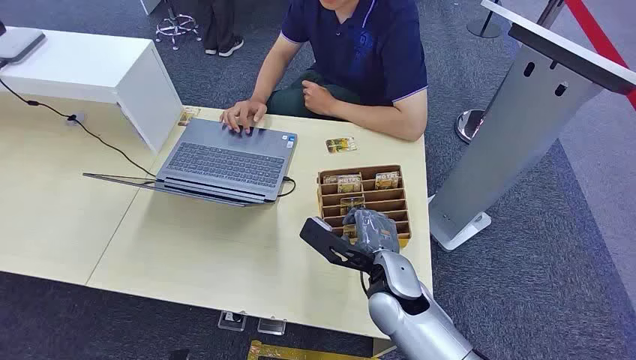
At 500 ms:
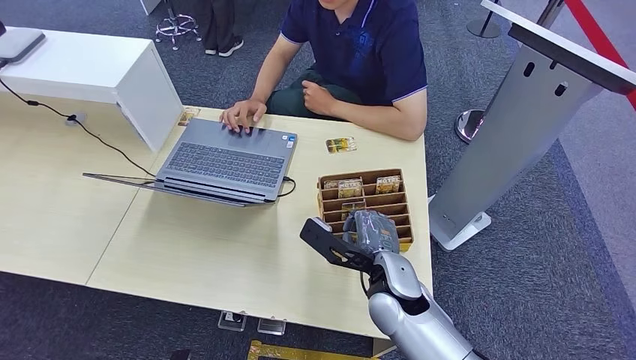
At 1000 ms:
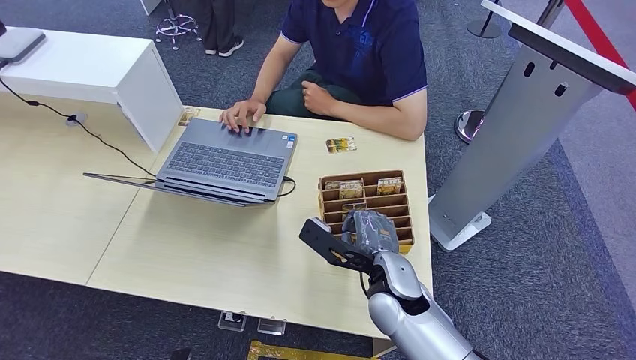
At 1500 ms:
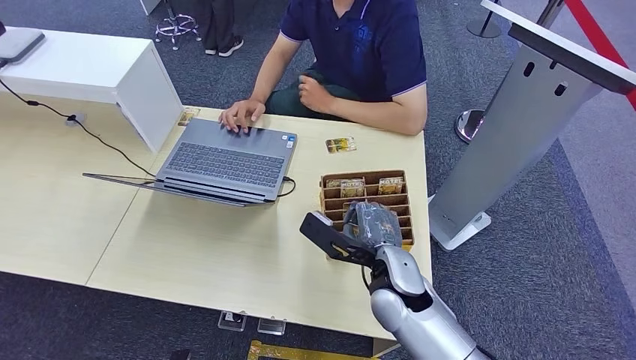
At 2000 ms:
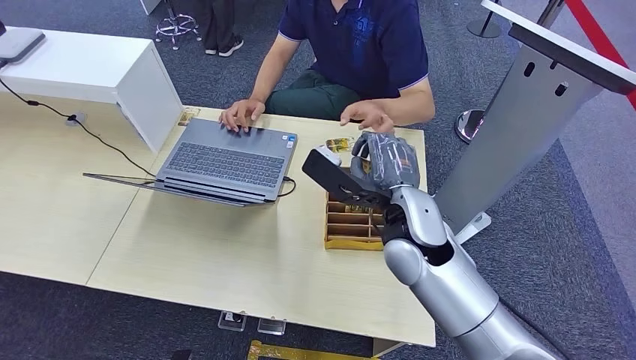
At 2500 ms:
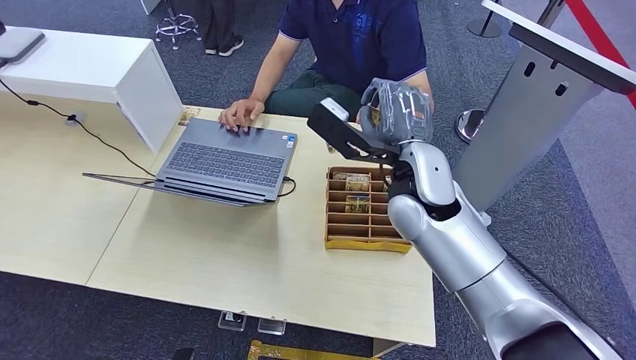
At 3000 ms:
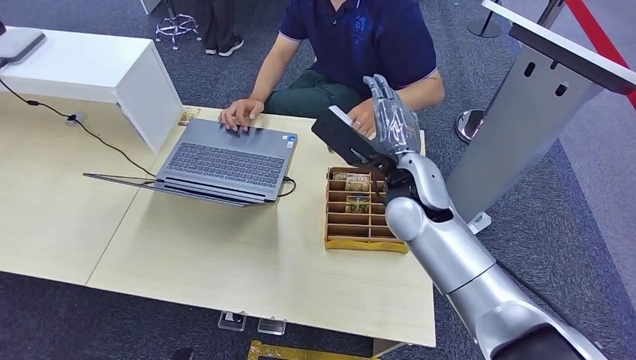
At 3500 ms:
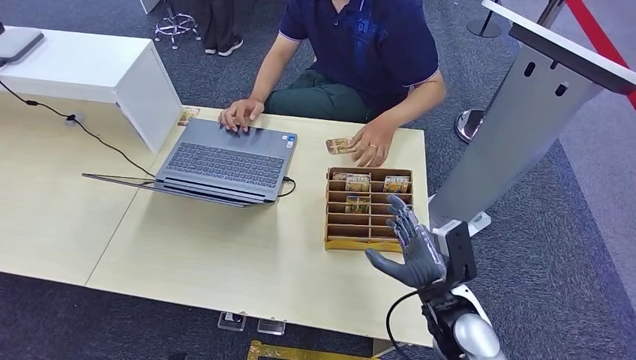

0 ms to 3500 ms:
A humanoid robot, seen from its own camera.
Step, 0 ms to 1500 ms: Pick up the room card from the card holder.
Step, 2000 ms to 3000 ms: Hand the room card to the target.
2000 ms to 3500 ms: The right hand moves downward, to the right and backward, some 20 cm.
